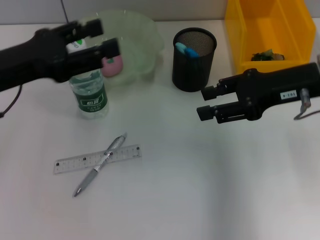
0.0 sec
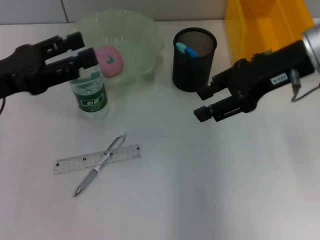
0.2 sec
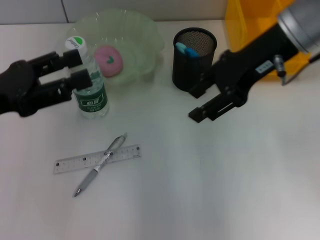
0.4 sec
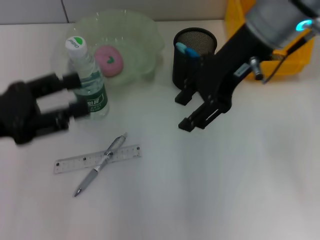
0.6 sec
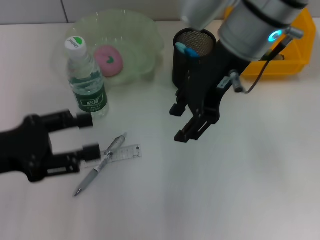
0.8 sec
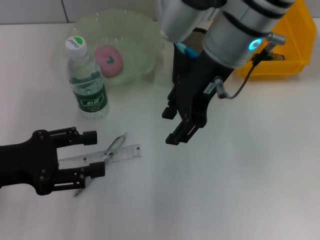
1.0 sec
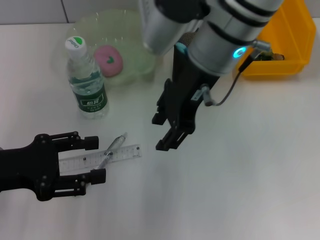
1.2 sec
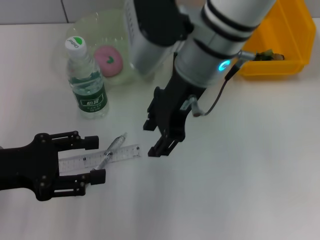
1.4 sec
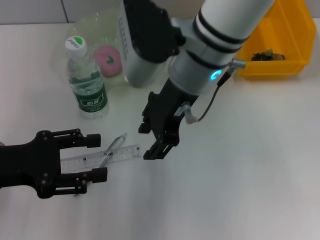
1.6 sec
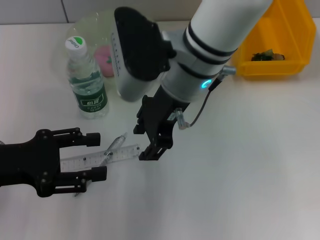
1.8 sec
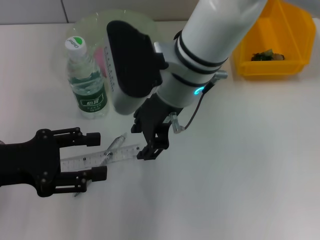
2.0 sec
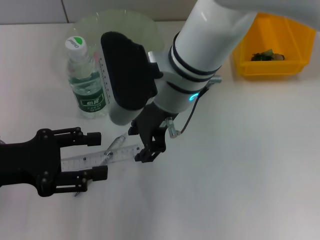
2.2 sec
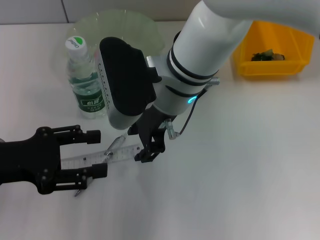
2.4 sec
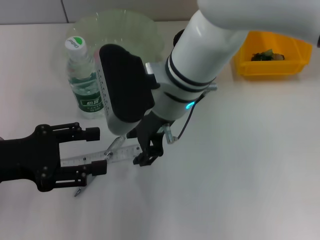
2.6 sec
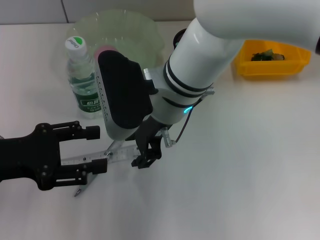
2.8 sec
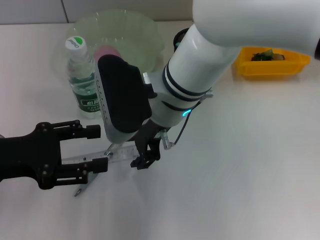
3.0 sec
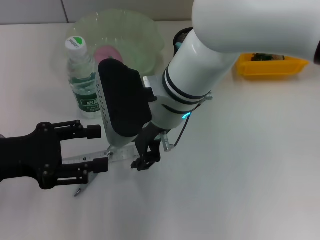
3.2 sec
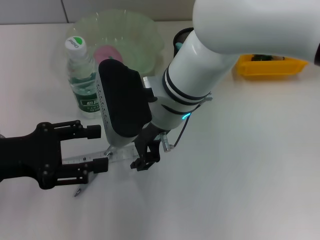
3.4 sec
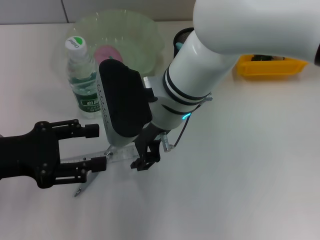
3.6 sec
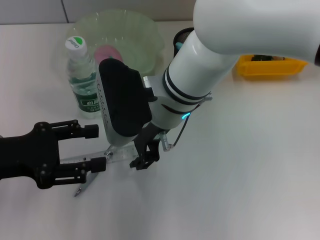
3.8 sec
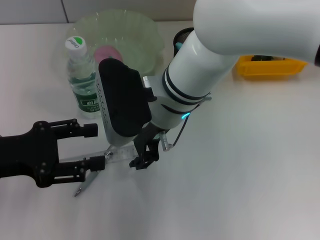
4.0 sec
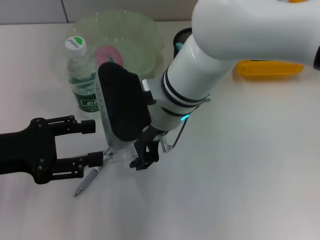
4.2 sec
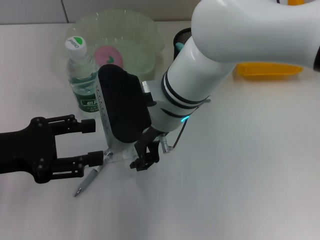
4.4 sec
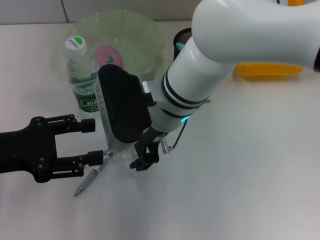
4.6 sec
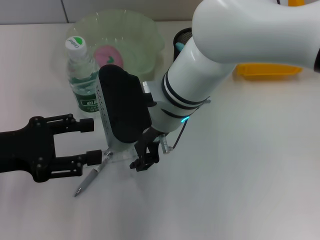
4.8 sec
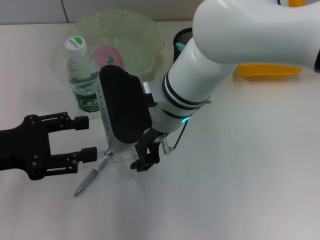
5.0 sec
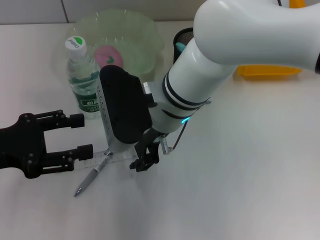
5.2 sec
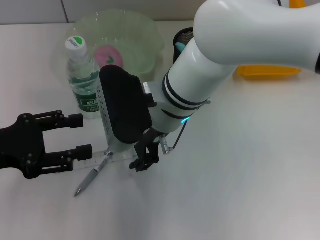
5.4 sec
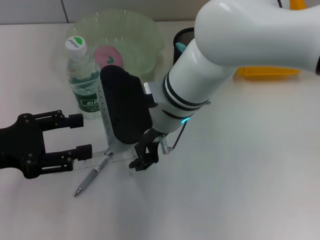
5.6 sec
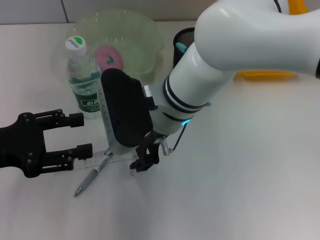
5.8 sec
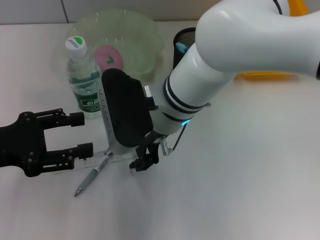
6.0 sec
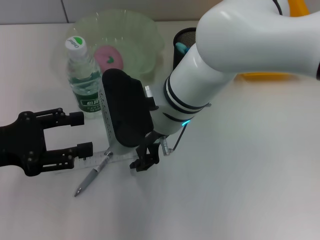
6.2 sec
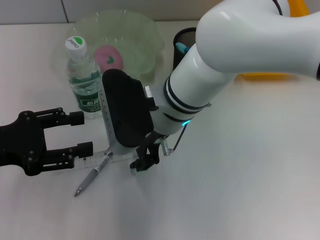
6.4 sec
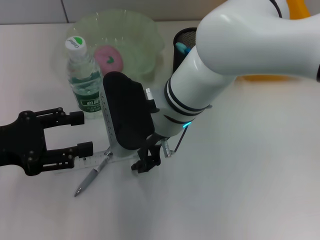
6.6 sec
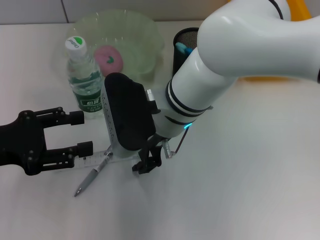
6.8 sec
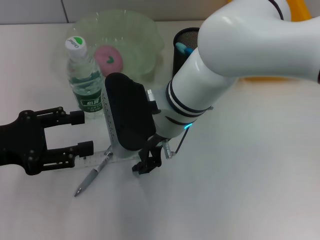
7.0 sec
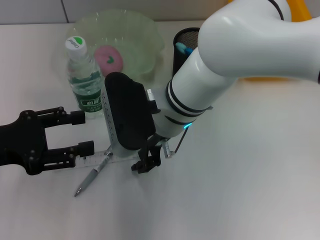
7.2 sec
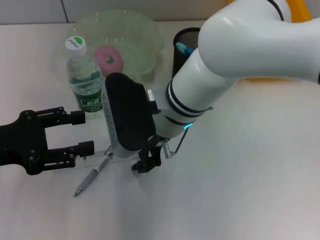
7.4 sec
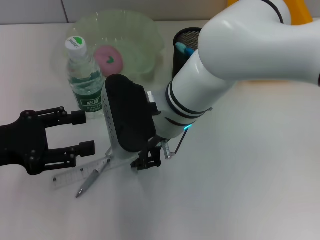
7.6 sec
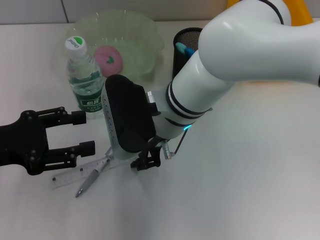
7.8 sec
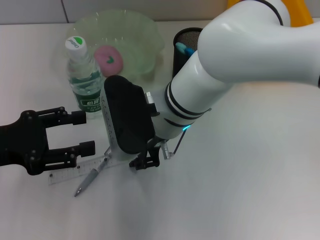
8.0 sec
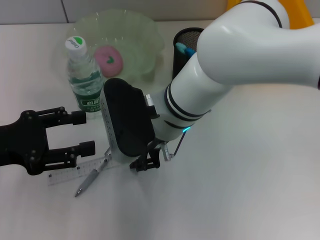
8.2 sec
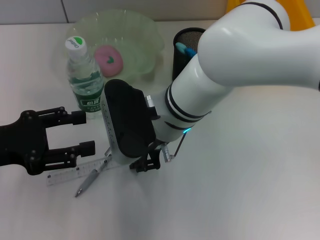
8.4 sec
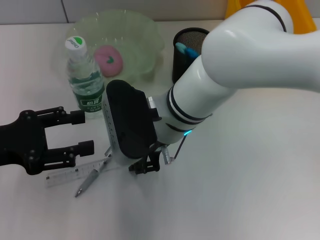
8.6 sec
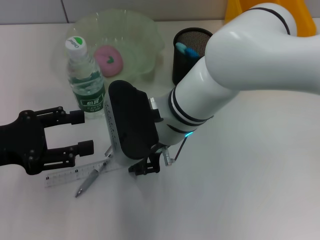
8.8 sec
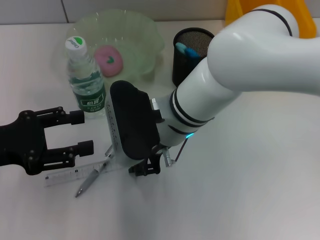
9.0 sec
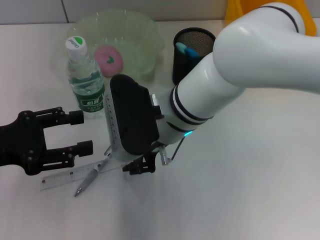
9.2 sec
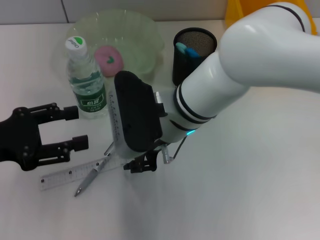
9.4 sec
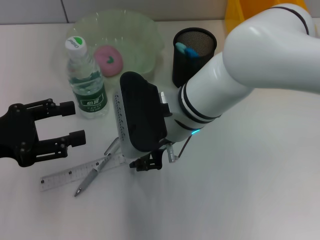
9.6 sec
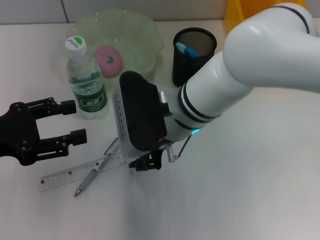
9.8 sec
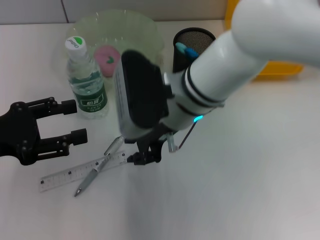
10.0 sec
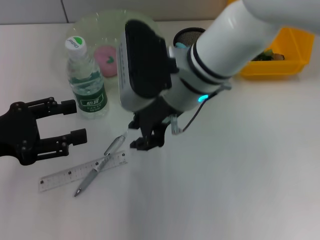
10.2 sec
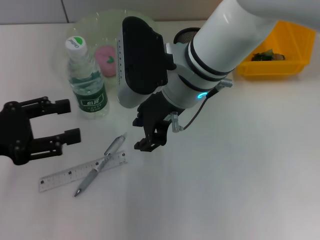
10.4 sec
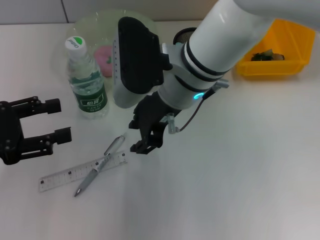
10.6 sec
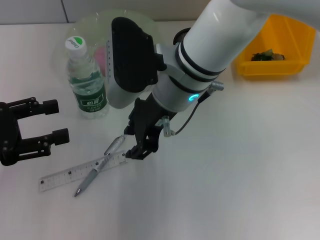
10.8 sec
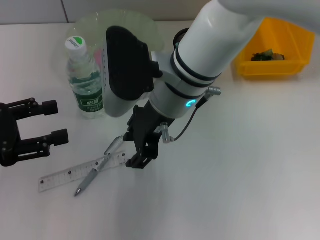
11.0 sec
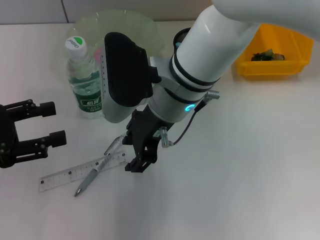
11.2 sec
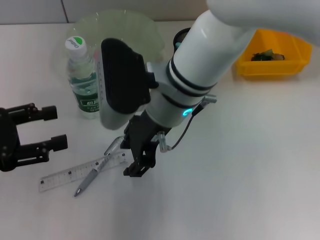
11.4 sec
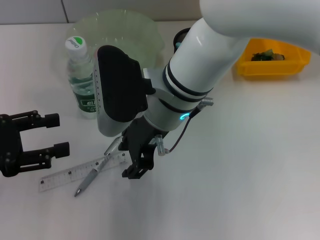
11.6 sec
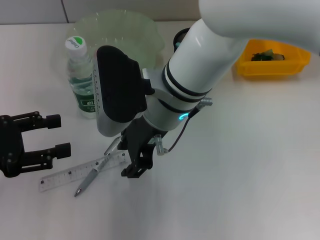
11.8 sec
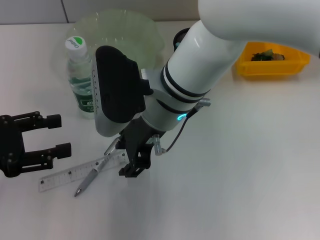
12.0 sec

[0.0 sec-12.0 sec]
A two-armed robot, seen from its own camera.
0.0 sec to 1.6 sec: The right gripper heads to the left, covering roughly 20 cm; the left gripper is displaced backward and downward by roughly 10 cm.
1.6 sec to 3.0 sec: The right gripper moves downward, some 5 cm.
3.0 sec to 4.4 sec: Both grippers stay about where they are.
4.4 sec to 6.0 sec: The two grippers keep their place.
6.0 sec to 7.6 sec: The two grippers keep their place.
7.6 sec to 9.0 sec: Both grippers stay put.
9.0 sec to 10.4 sec: The right gripper shifts approximately 5 cm upward.

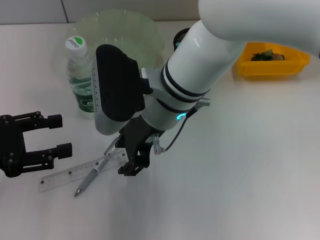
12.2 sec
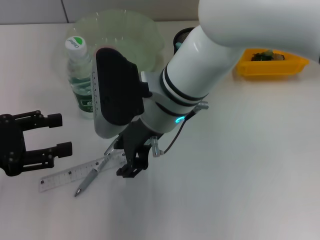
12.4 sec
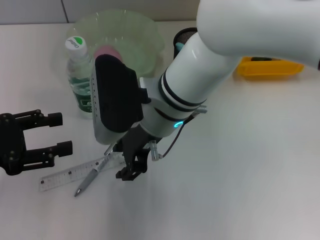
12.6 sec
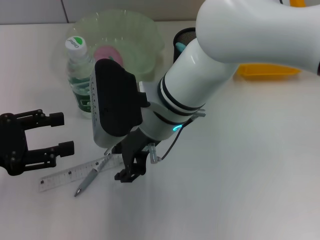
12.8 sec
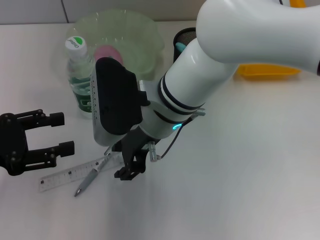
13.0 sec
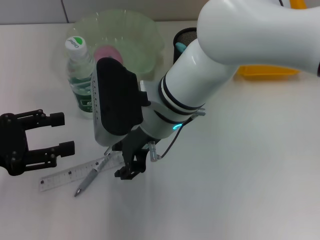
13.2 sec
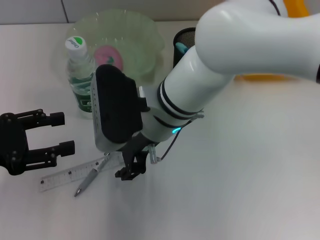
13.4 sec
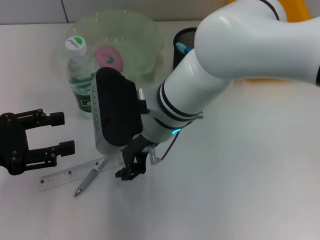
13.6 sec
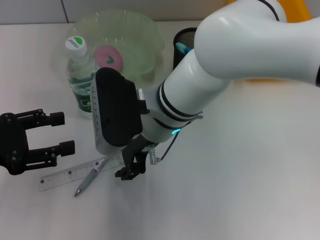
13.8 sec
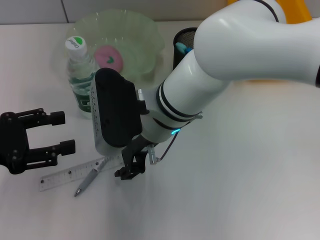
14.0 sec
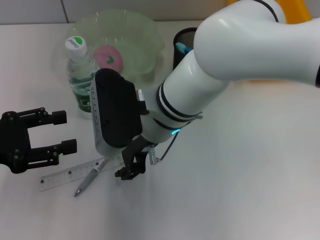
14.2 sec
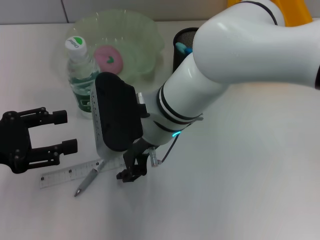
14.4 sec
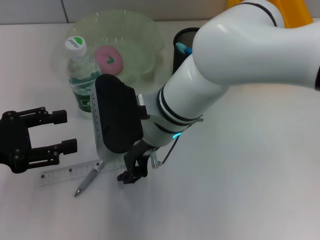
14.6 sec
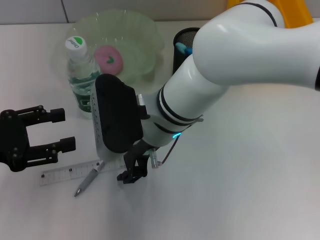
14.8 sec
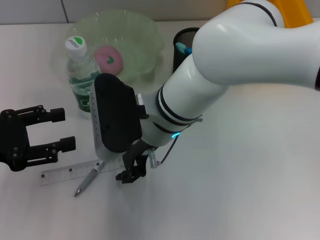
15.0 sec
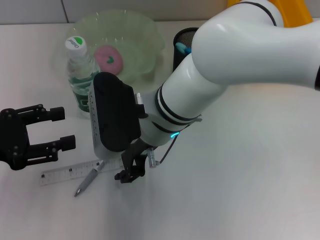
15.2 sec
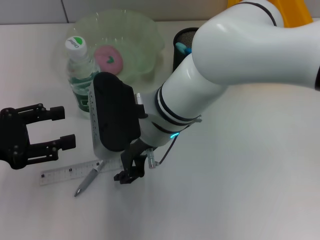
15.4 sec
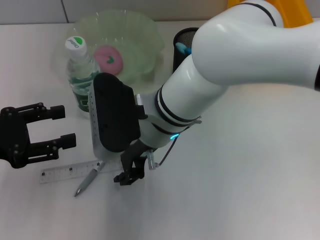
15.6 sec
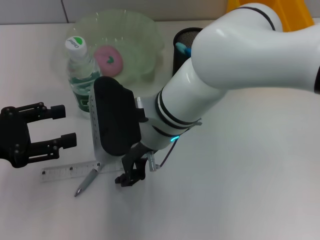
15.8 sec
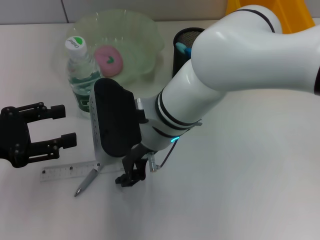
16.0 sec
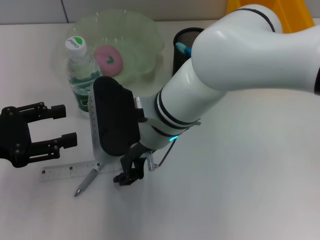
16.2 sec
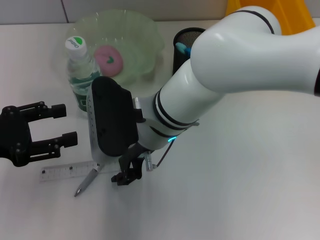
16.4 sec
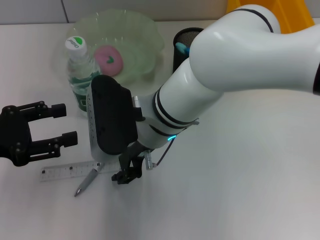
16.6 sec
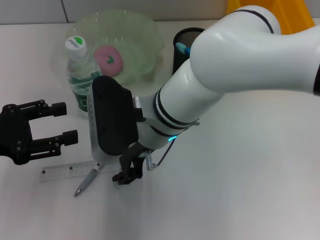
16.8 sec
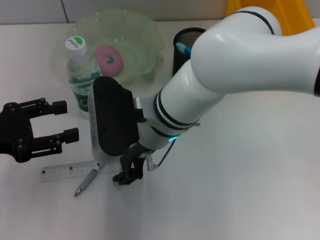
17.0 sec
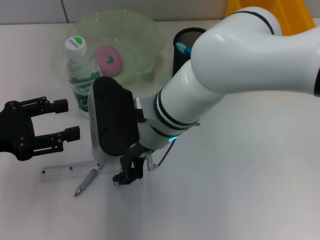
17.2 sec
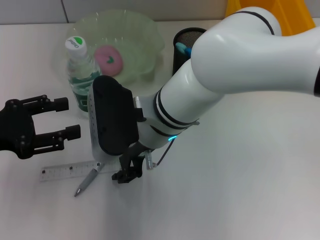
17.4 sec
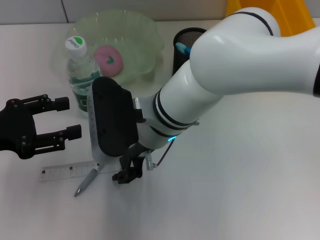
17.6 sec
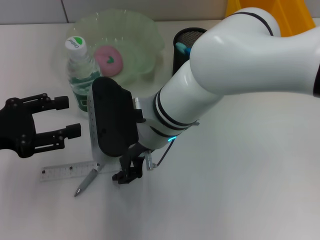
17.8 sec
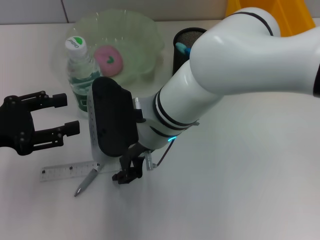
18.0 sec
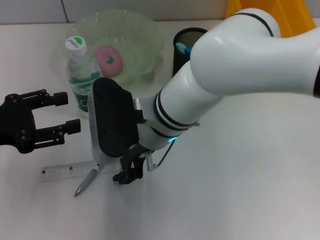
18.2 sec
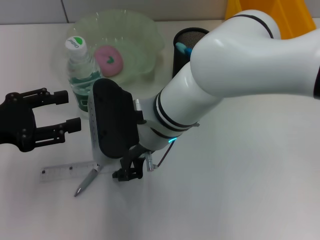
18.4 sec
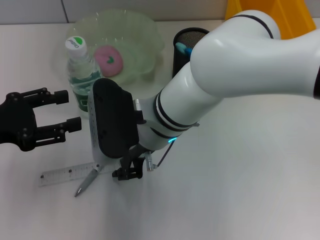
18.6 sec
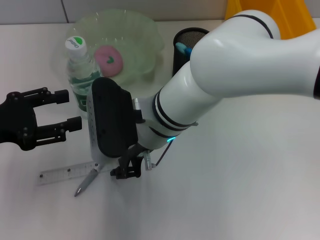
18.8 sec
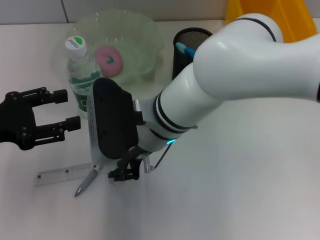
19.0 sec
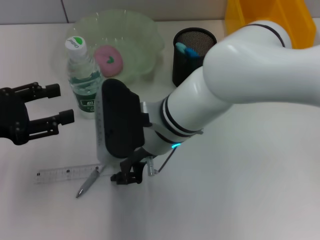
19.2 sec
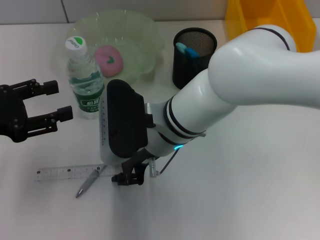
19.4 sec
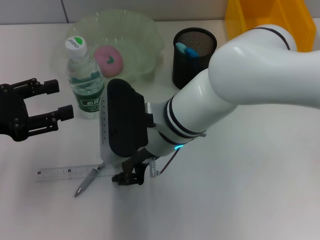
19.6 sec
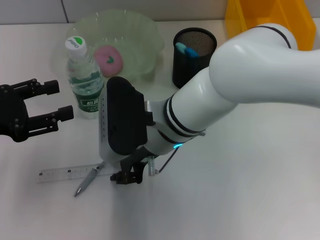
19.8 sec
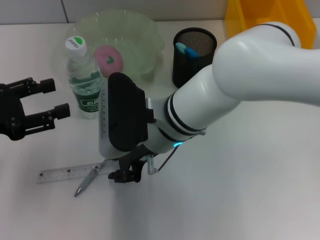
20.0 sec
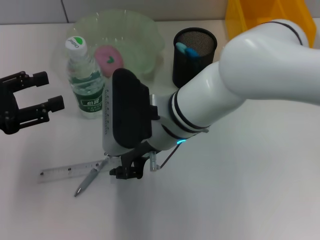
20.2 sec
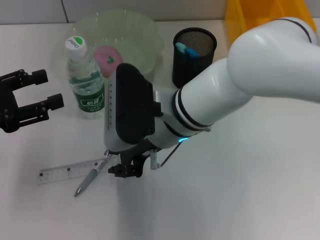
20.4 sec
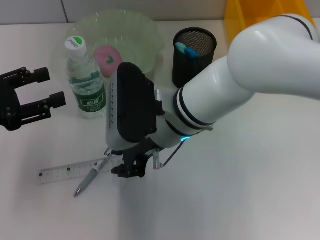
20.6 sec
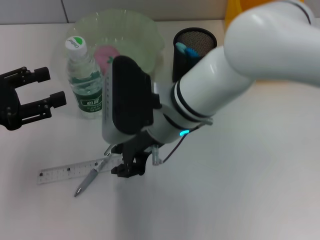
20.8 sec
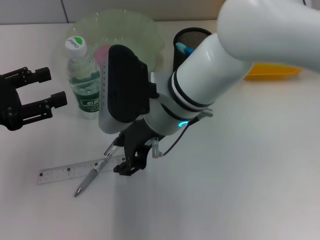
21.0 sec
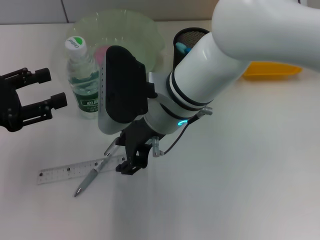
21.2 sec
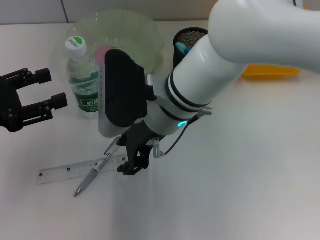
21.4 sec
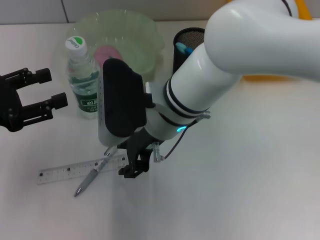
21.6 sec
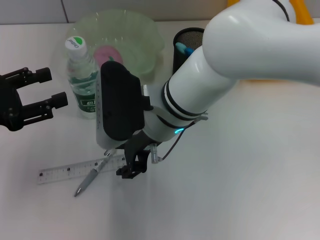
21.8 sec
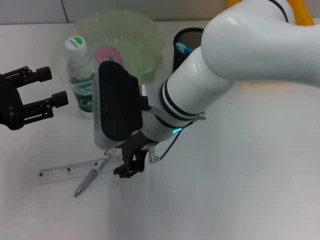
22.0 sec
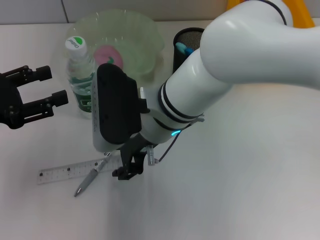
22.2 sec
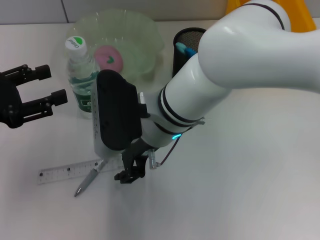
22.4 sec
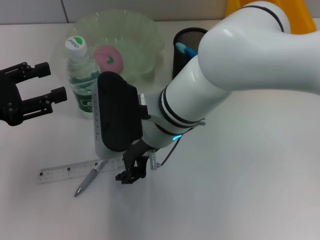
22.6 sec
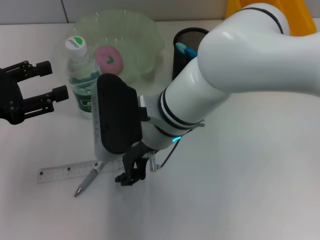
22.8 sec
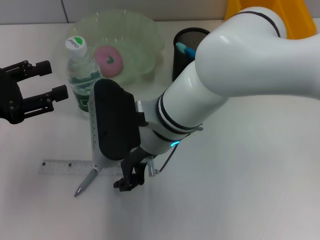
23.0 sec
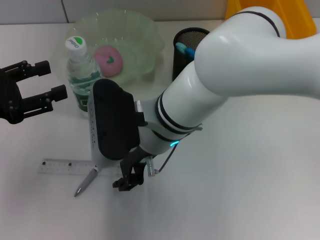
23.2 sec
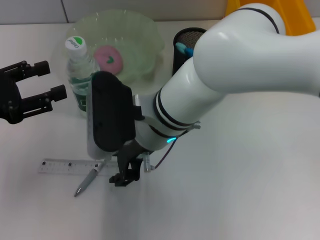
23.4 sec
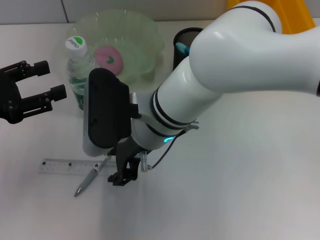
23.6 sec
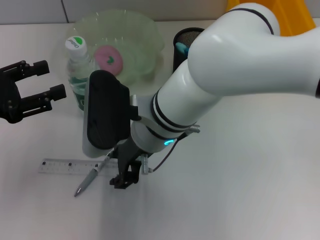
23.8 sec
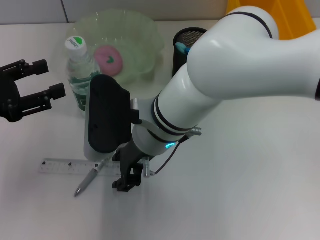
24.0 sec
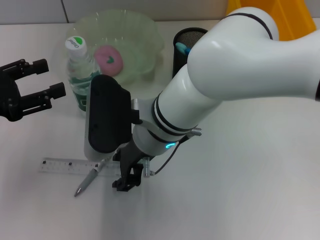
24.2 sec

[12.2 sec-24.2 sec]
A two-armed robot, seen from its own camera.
Step, 12.2 sec to 19.2 sec: Grab the ruler with the right hand.
12.2 sec to 13.8 sec: The grippers stay close to where they were, moving slightly.
13.8 sec to 16.6 sec: Both grippers stay about where they are.
16.6 sec to 18.2 sec: The two grippers keep their place.
22.6 sec to 24.2 sec: The grippers move only a little.
